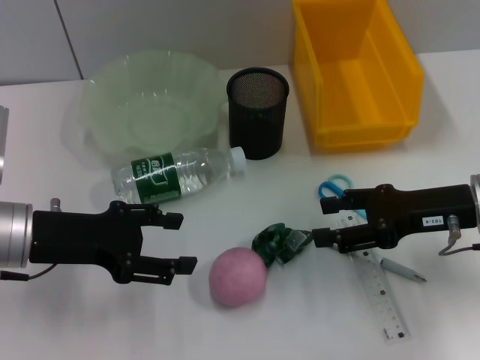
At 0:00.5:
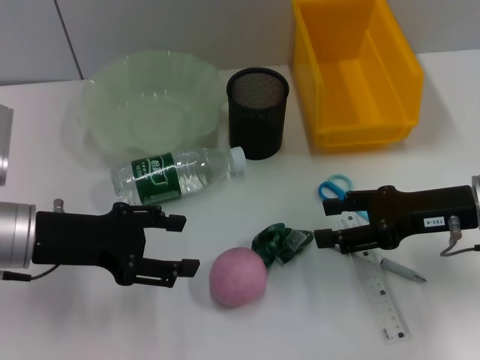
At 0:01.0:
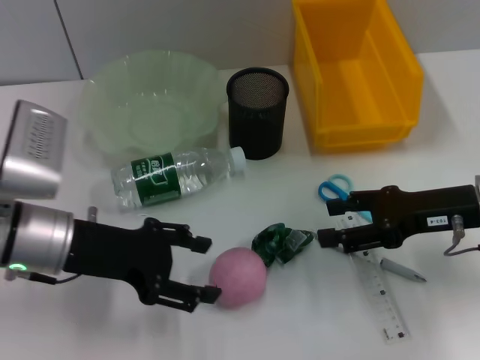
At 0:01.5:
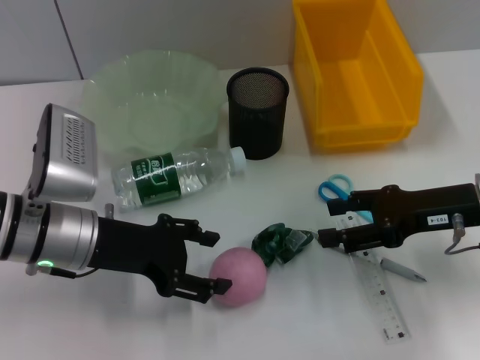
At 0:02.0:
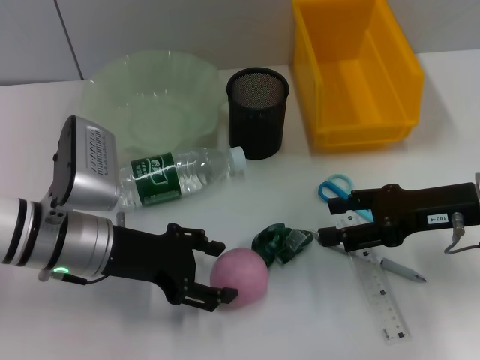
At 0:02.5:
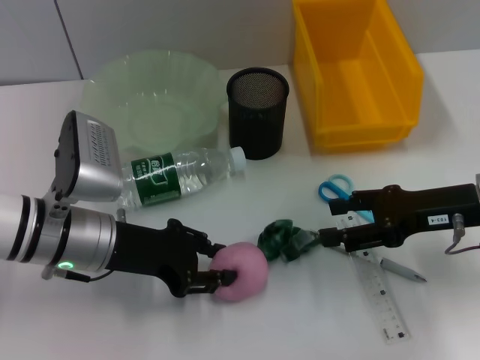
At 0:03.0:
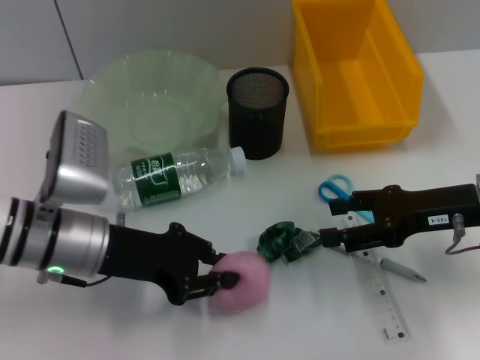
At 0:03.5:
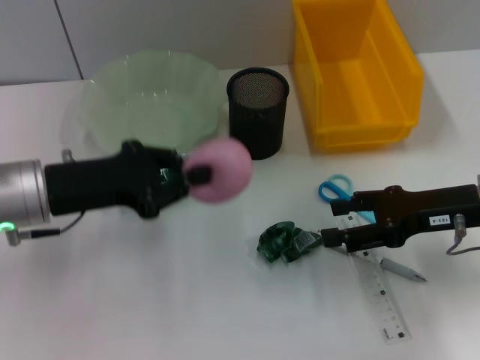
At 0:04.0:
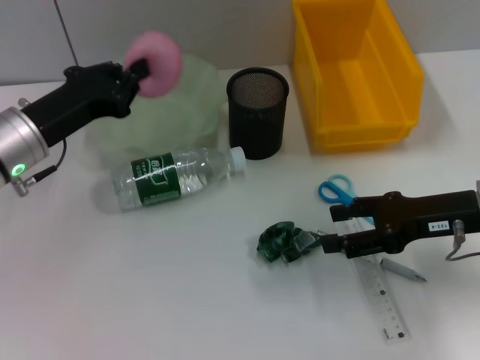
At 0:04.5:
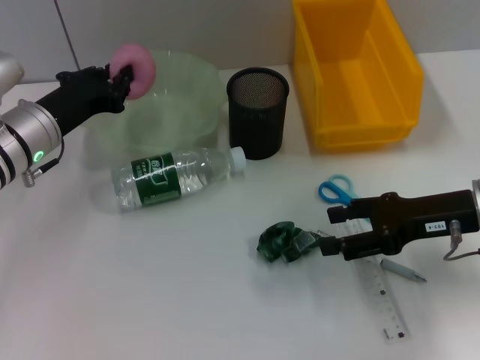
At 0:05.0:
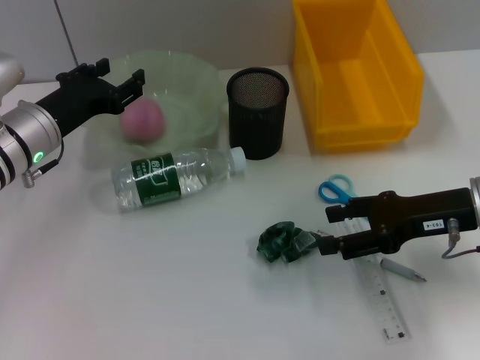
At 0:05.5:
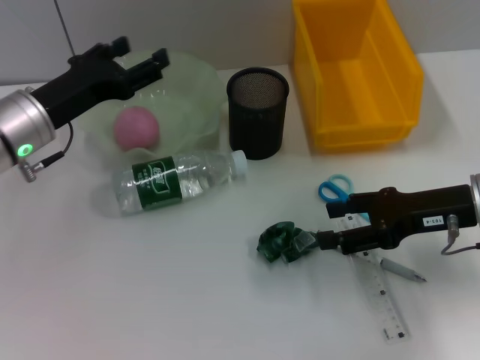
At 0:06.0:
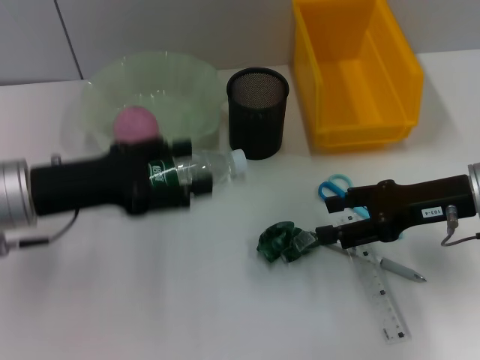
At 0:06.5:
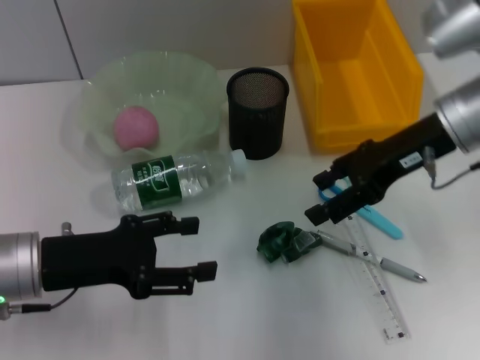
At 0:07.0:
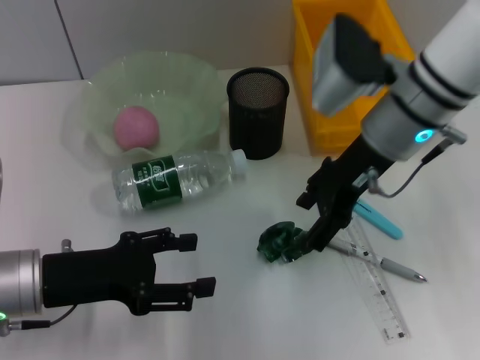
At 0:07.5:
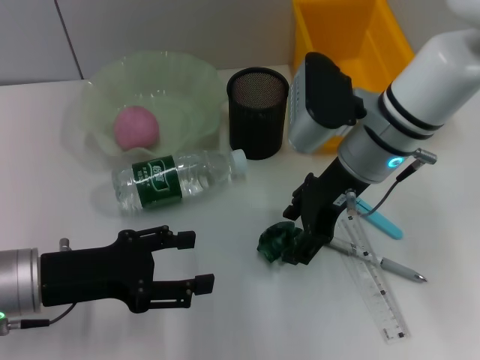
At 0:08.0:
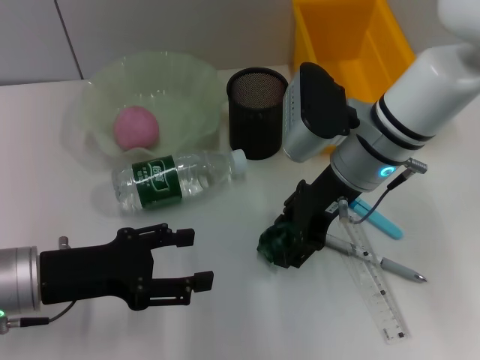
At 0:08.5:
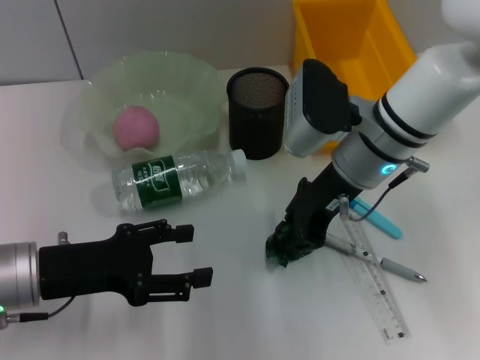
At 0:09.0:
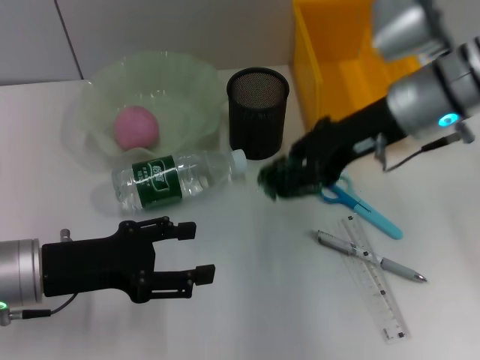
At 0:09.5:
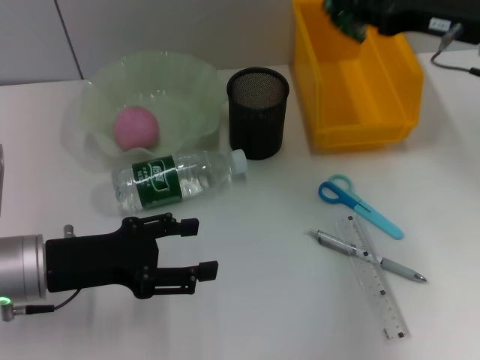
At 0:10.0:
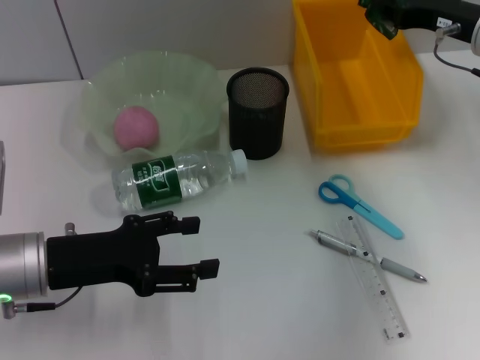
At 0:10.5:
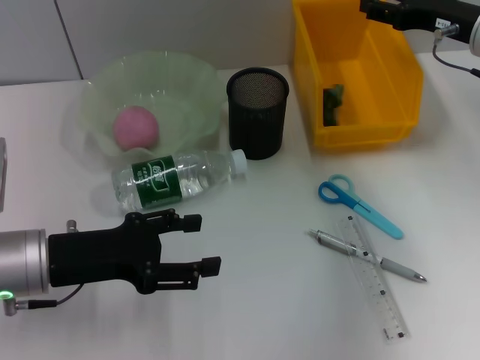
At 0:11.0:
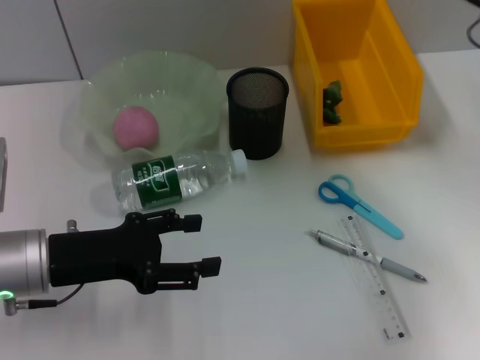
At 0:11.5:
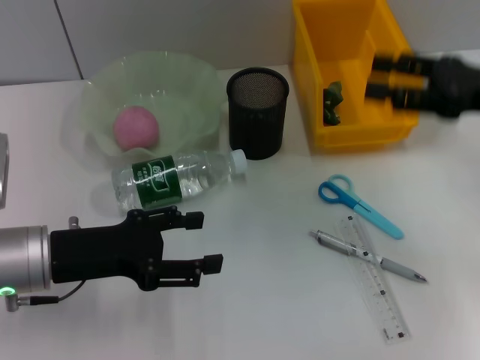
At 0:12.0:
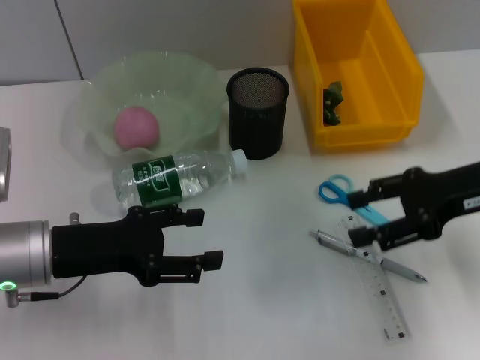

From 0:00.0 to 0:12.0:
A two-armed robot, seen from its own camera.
Step, from 0:00.0 to 0:02.5: Grab the peach with the left hand.
Step, from 0:03.0 to 0:05.0: Place the peach into the fruit bowl with the left hand.
Step, from 0:05.5 to 0:08.0: Grab the plastic with the right hand.
Step, from 0:08.5 to 0:10.5: Place the plastic into the trash can with the right hand.
From 0:00.0 to 0:02.0: The left gripper shifts about 5 cm to the right.
From 0:02.0 to 0:04.0: The left gripper moves forward and to the left, about 5 cm, and closes its fingers.
From 0:04.0 to 0:06.0: The left gripper moves some 5 cm, and opens up.
From 0:06.0 to 0:08.0: The left gripper shifts by approximately 5 cm. The right gripper heads to the left, covering approximately 15 cm.
From 0:08.0 to 0:10.0: The right gripper shifts roughly 15 cm to the right, and closes up.
From 0:10.0 to 0:12.0: The right gripper is displaced backward by approximately 10 cm, and opens up.

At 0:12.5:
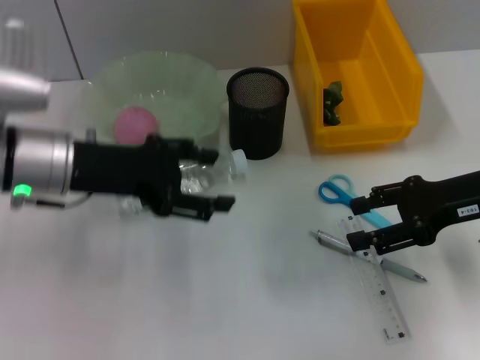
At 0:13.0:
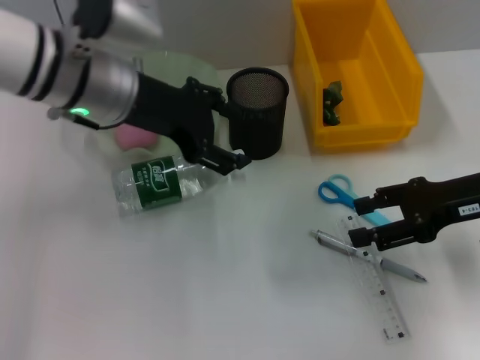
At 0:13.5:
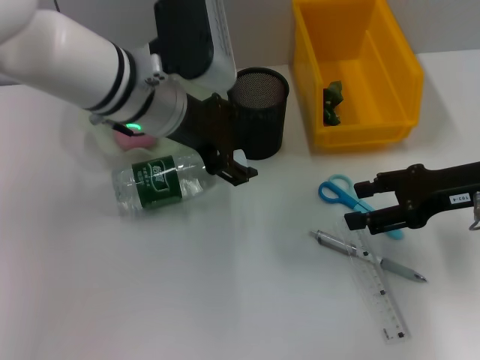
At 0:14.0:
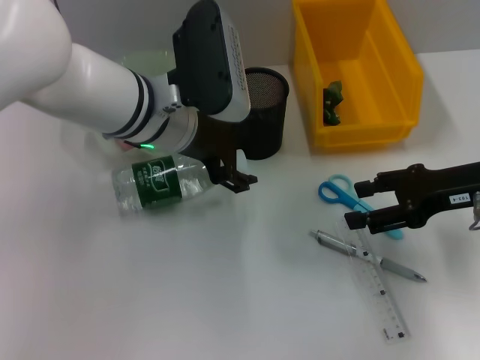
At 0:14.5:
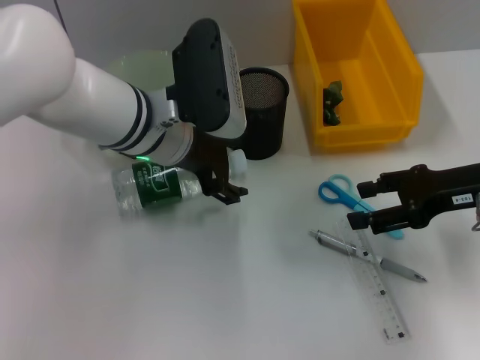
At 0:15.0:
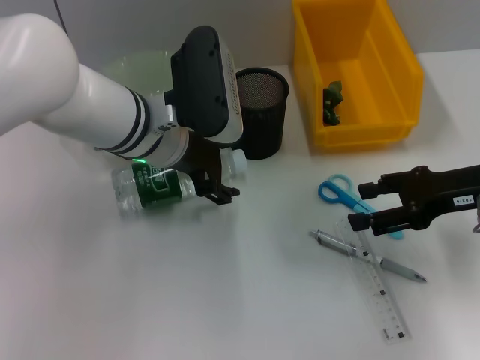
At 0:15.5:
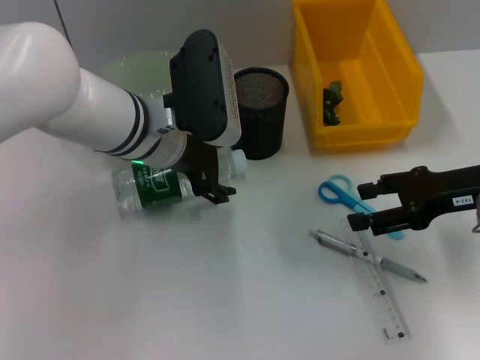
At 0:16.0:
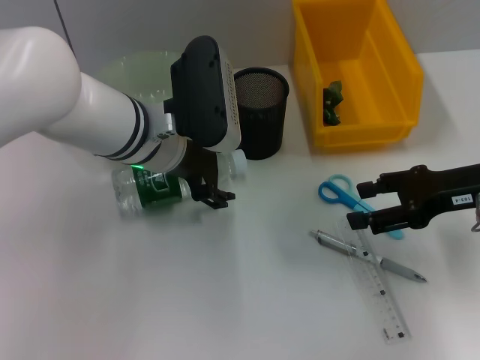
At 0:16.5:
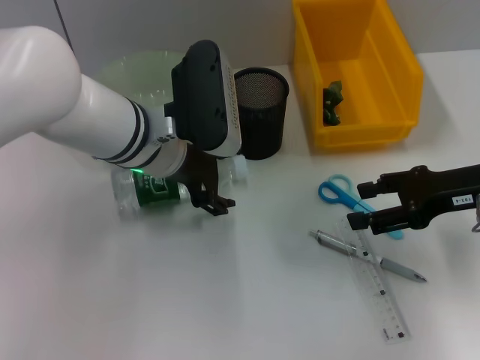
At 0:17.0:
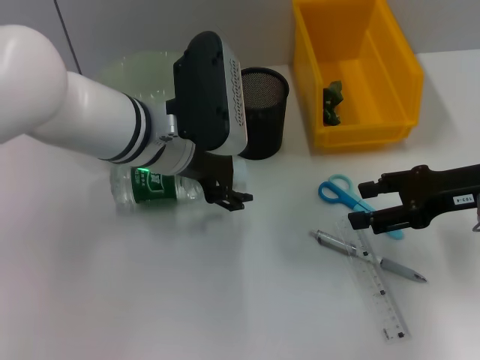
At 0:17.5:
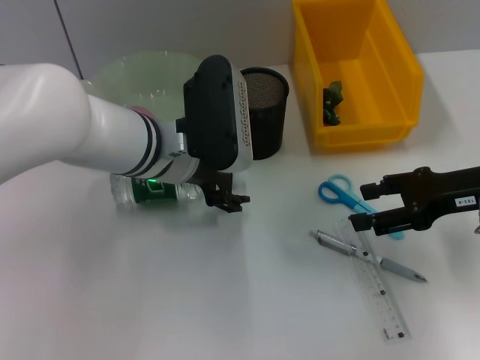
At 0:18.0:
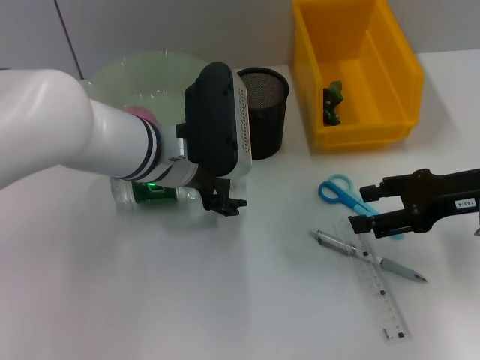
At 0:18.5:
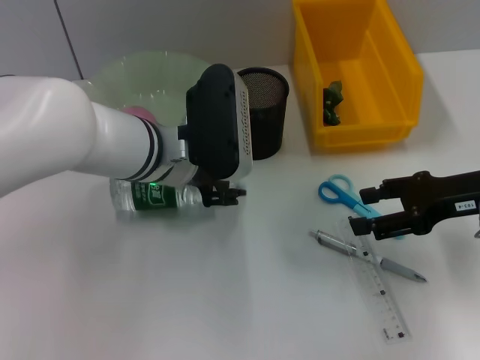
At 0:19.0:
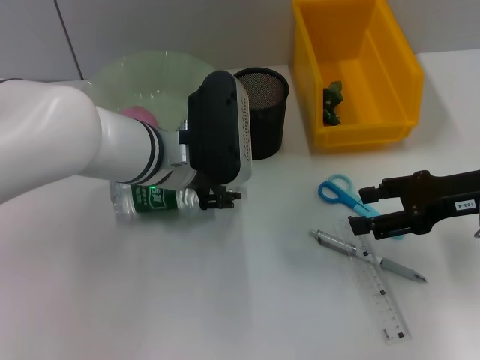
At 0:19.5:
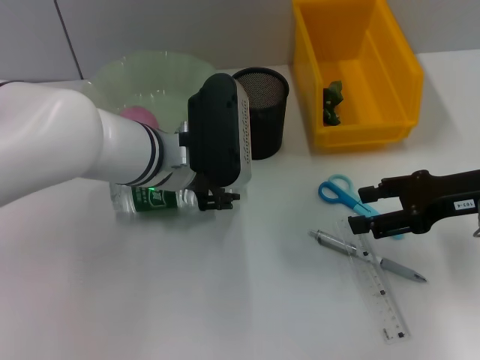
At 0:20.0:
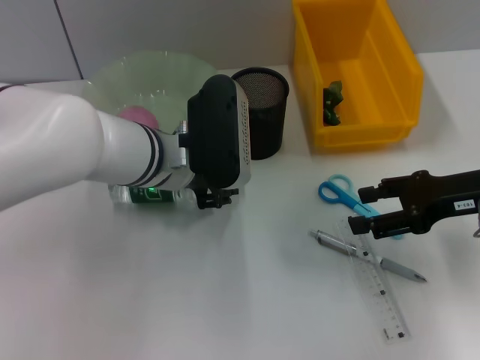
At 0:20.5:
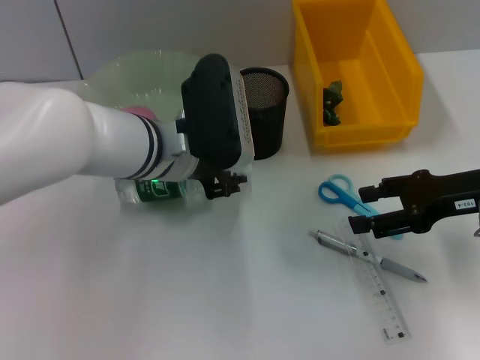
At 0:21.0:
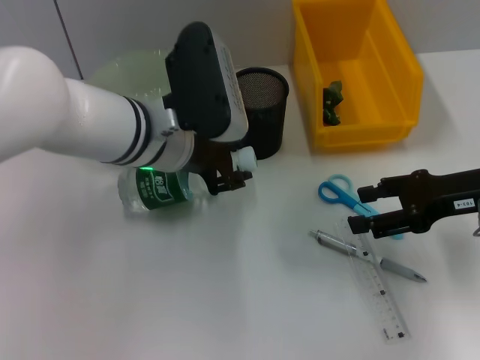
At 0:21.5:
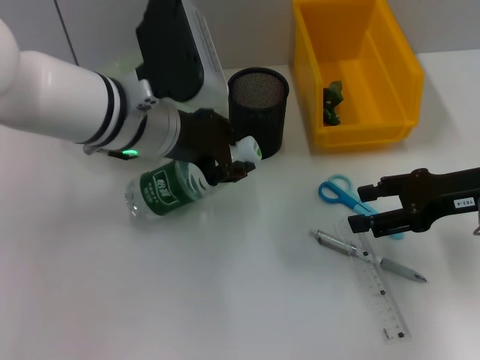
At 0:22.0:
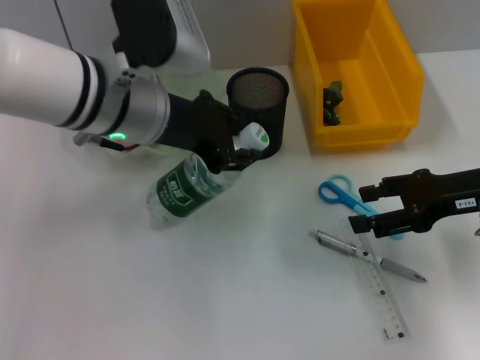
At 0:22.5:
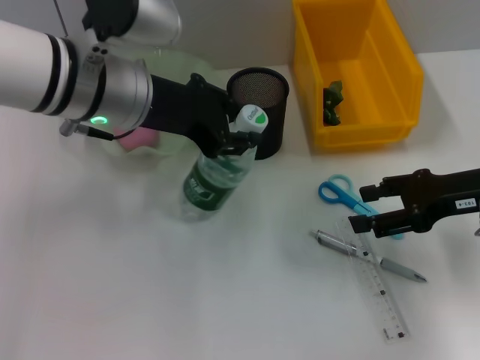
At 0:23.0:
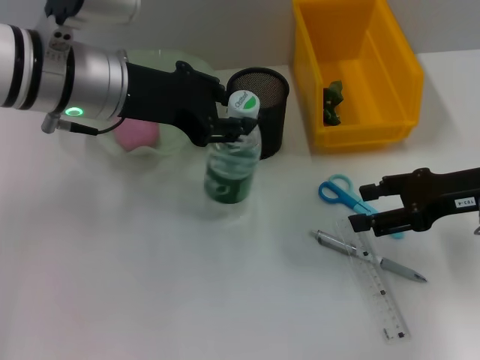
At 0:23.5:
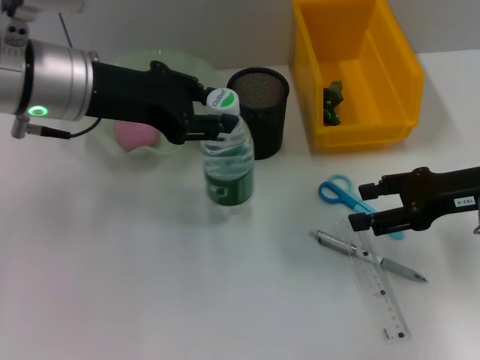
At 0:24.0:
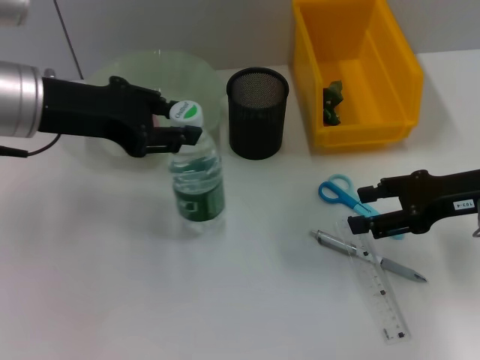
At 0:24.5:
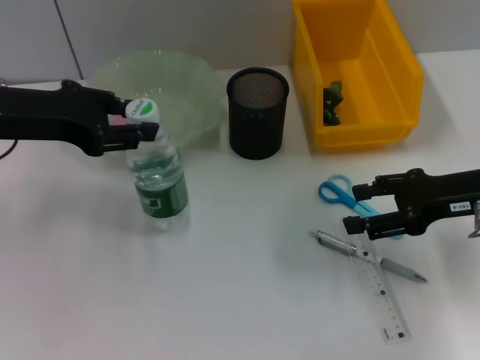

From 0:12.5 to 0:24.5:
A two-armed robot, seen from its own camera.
Step, from 0:12.5 to 0:19.5: Grab the water bottle with the left hand.
From 0:12.5 to 0:14.5: The left gripper moves to the right, about 10 cm.
From 0:14.5 to 0:16.5: Both grippers stay put.
From 0:16.5 to 0:18.5: The grippers make only small movements.
From 0:18.5 to 0:20.5: The two grippers keep their place.
From 0:20.5 to 0:22.5: The left gripper heads upward, covering approximately 10 cm.
From 0:22.5 to 0:24.5: The left gripper heads to the left, covering about 10 cm.

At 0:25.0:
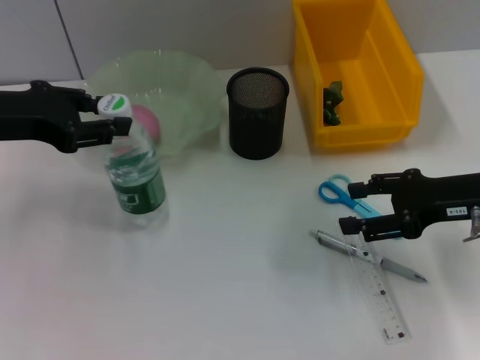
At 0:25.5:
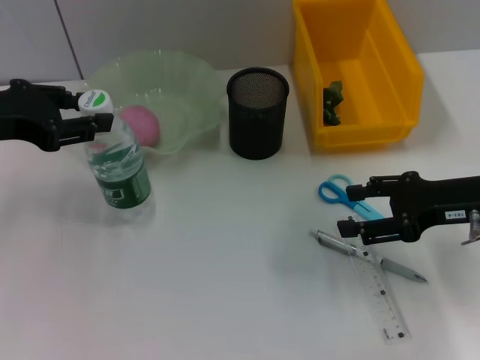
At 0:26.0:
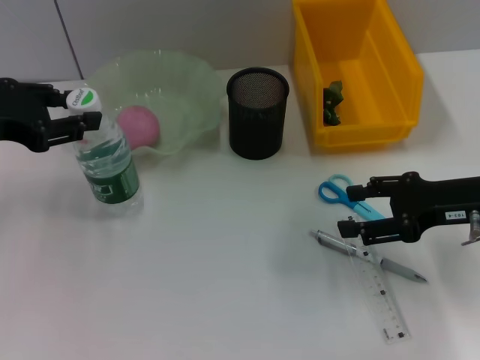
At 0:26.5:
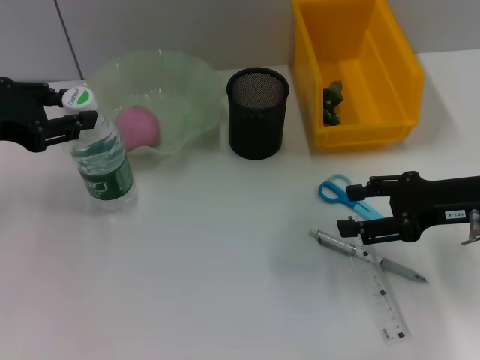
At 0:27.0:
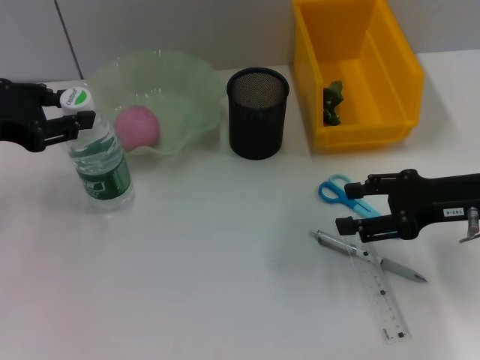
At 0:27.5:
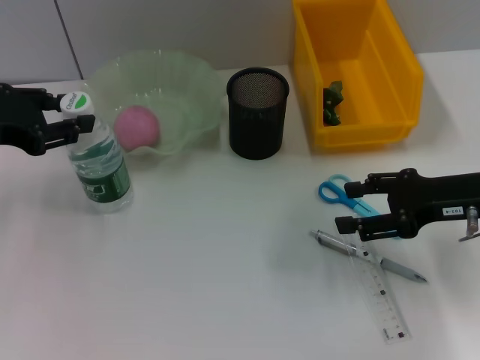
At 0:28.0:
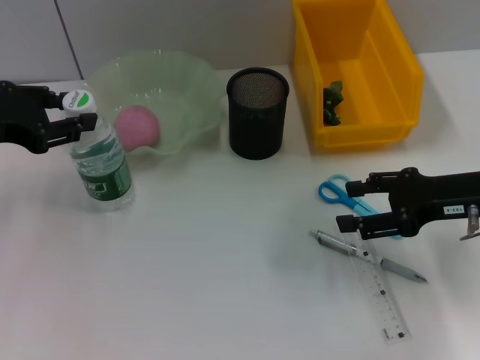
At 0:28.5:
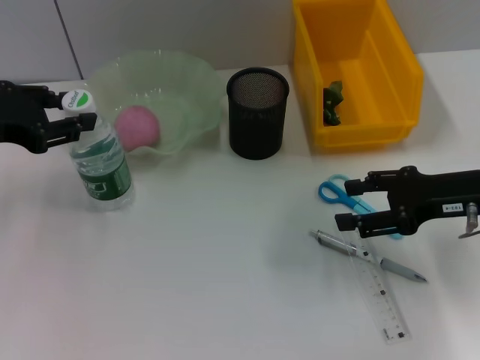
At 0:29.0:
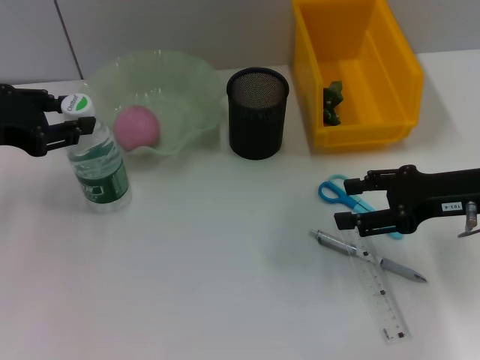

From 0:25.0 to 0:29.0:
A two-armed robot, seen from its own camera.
From 0:25.0 to 0:27.0: The grippers stay close to where they were, moving slightly.
From 0:27.0 to 0:29.0: Both grippers stay put.
